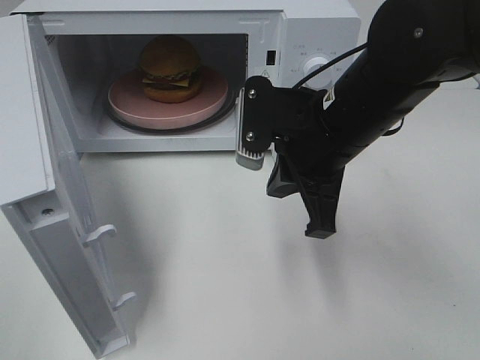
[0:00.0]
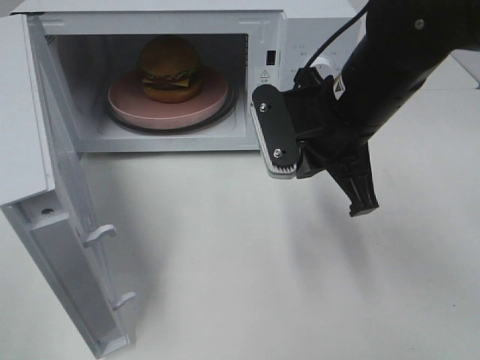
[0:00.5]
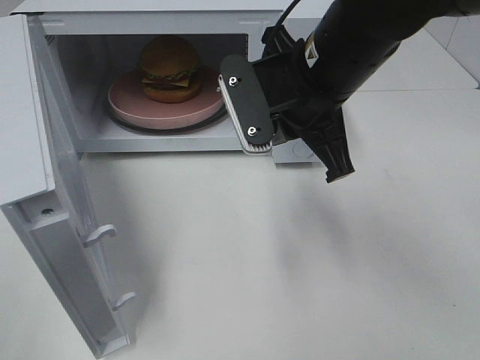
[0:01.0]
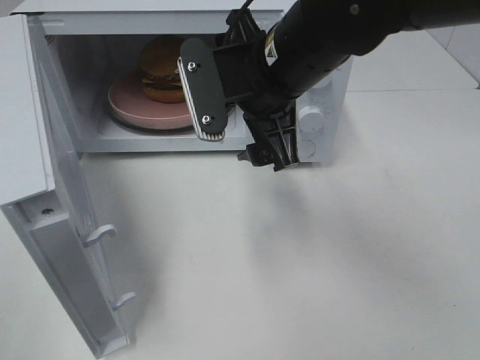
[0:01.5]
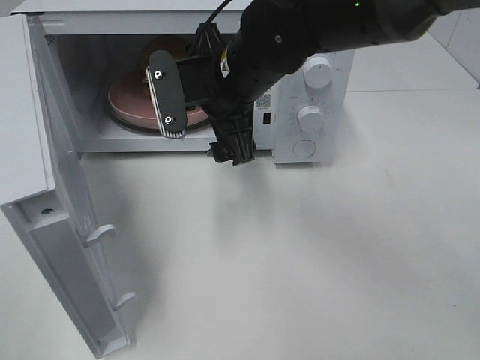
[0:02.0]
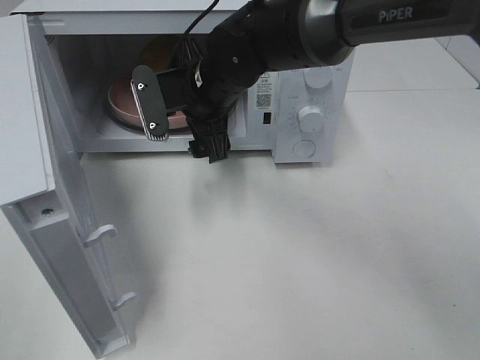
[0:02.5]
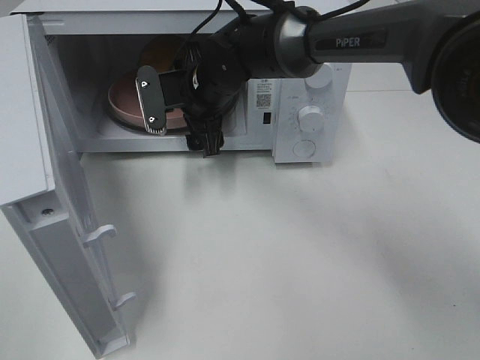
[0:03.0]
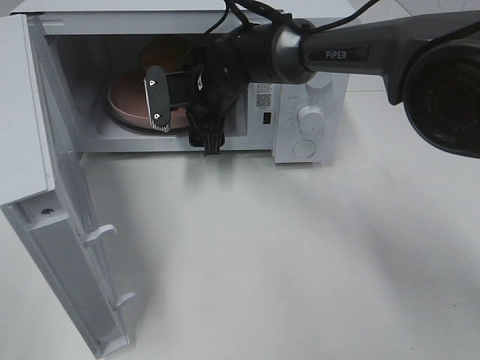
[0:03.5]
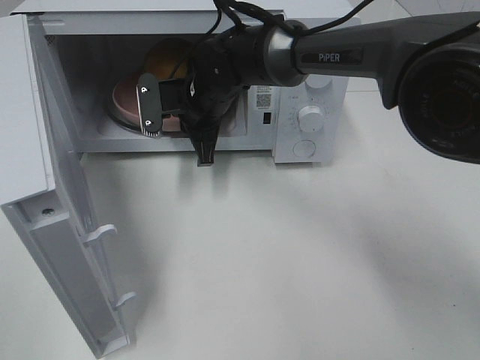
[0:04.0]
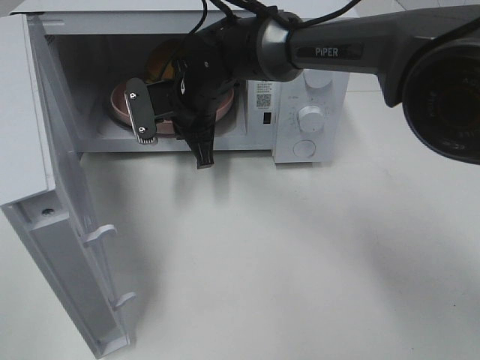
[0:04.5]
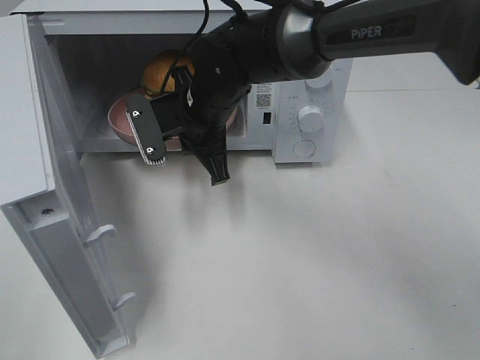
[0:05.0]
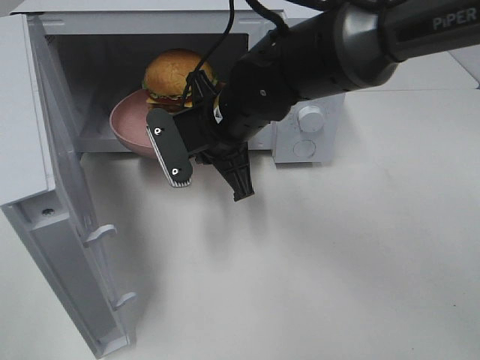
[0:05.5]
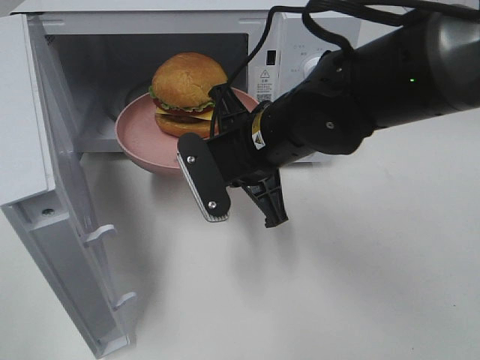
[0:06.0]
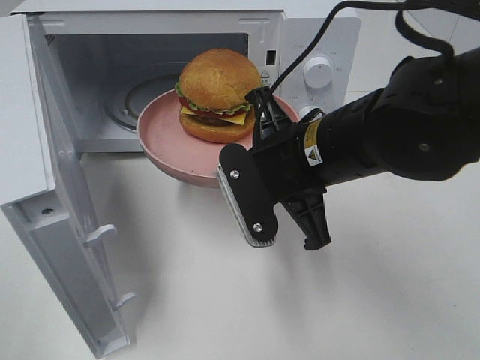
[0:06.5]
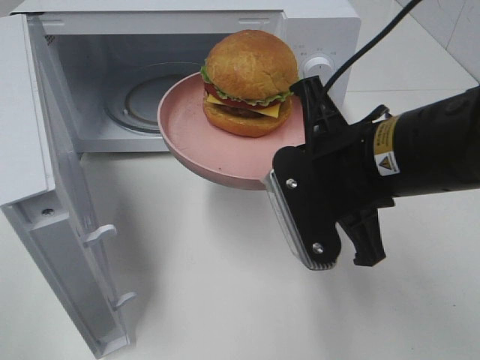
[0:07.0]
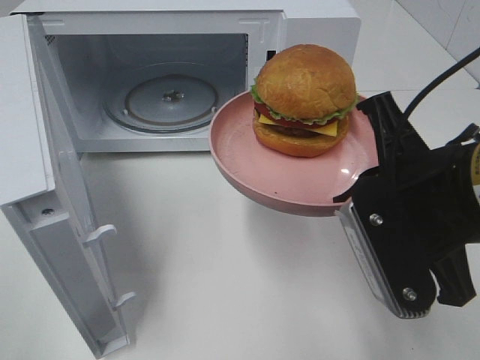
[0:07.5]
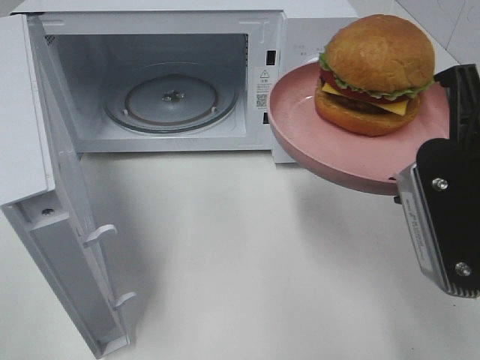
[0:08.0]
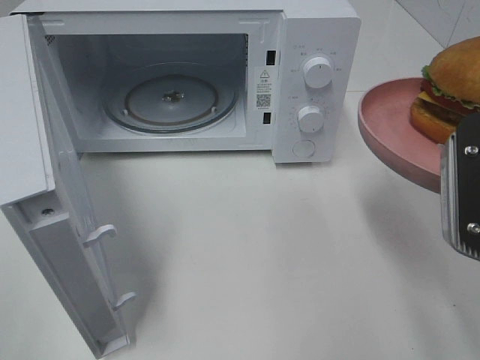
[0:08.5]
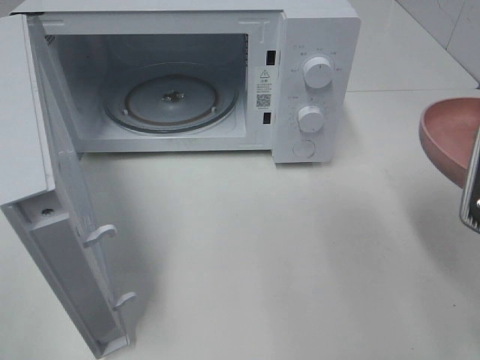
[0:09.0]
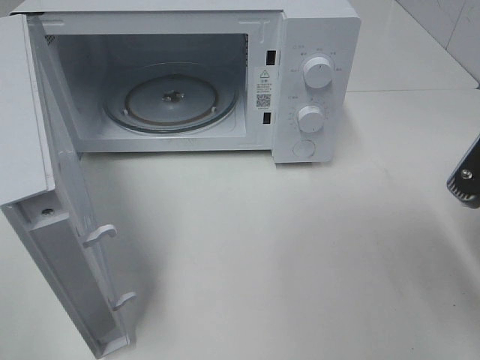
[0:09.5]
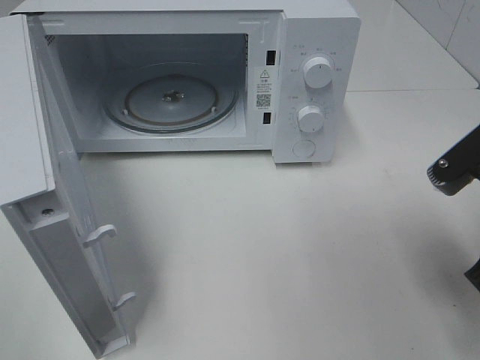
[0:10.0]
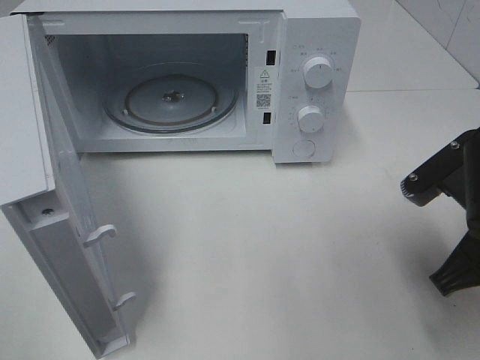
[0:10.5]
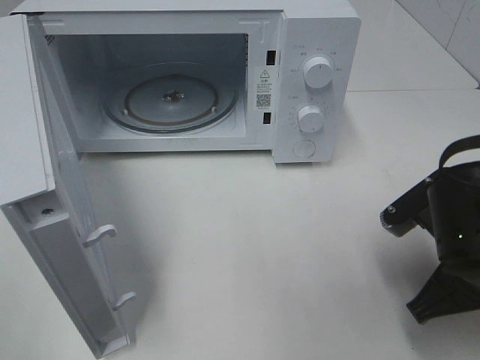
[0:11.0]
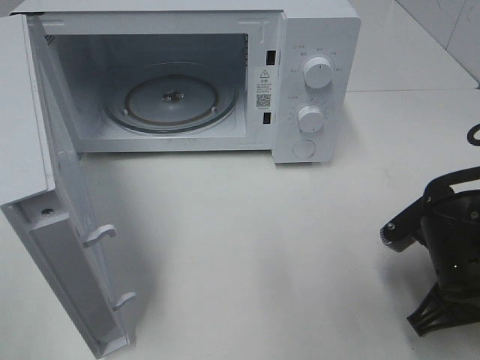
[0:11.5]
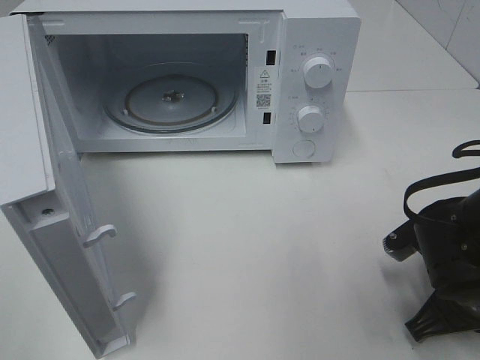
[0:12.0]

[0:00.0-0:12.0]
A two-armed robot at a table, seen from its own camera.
Task of the whole recording: Heat the burger.
Step, 0:00.0 to 0:04.0: Right hand: grab the plate with the hamburger.
0:00.0 to 0:02.0: The right gripper heads to the left and forward, covering roughly 10 cm, and opens up.
0:02.0 to 0:04.0: The right gripper shifts roughly 10 cm forward and downward, and closes.
0:04.0 to 0:06.0: The right gripper travels backward and to the right by roughly 15 cm.
0:06.0 to 0:08.0: The right gripper heads to the right, backward and upward, covering approximately 20 cm.
0:08.0 to 0:10.0: The right gripper travels downward by approximately 5 cm.
0:10.0 to 0:12.0: The right gripper moves downward, approximately 10 cm.

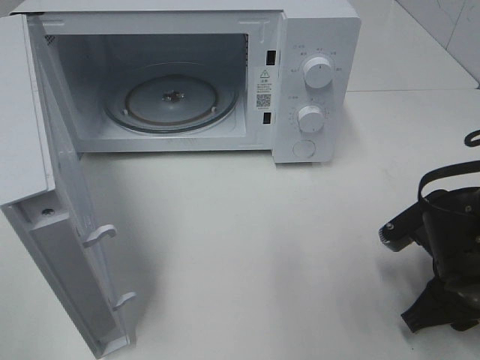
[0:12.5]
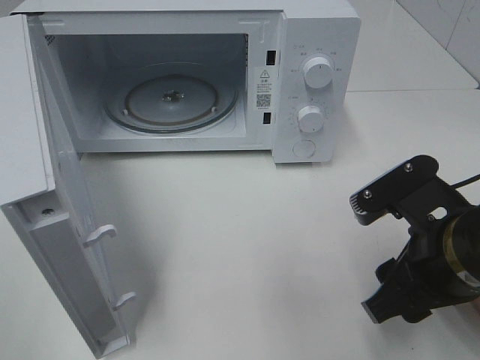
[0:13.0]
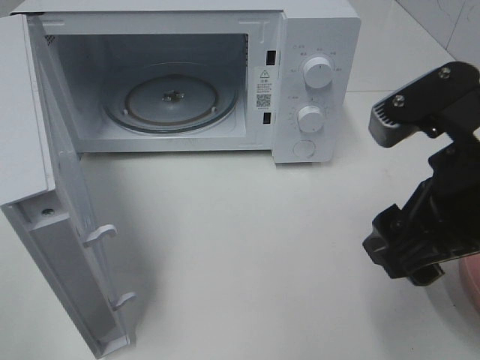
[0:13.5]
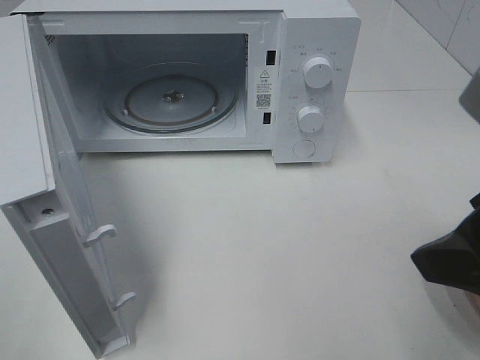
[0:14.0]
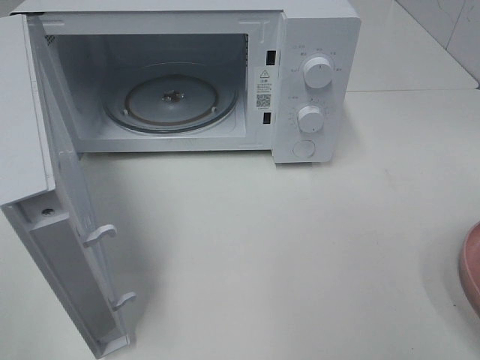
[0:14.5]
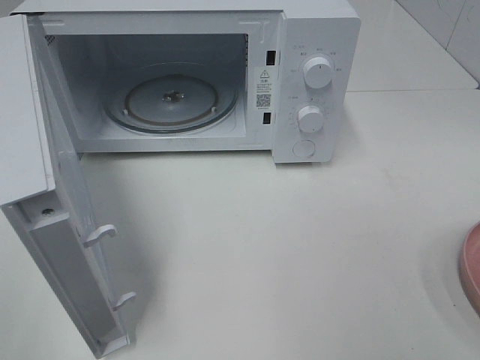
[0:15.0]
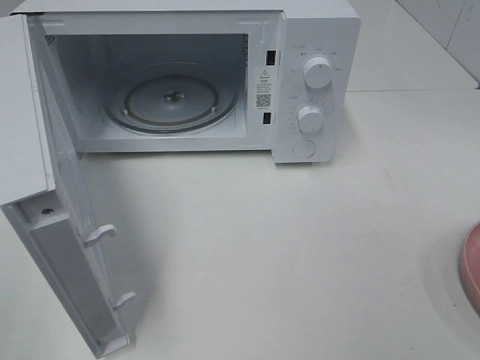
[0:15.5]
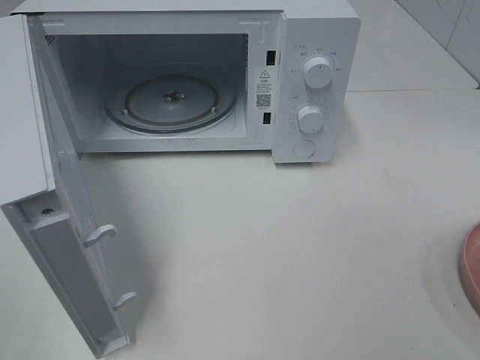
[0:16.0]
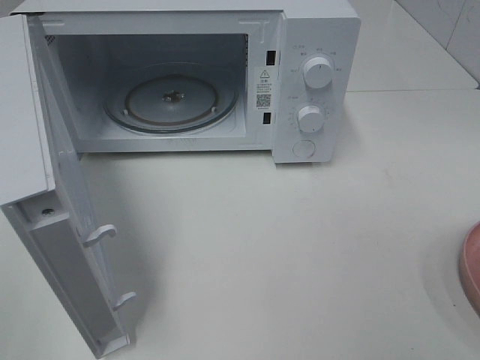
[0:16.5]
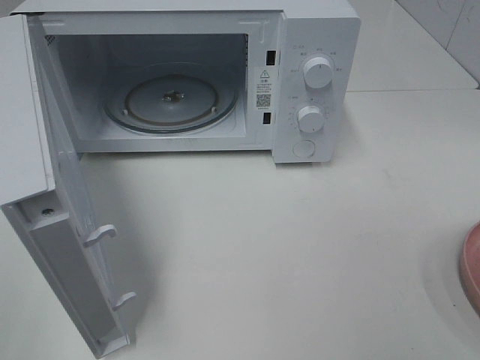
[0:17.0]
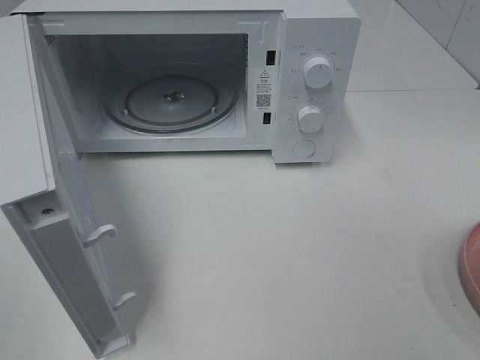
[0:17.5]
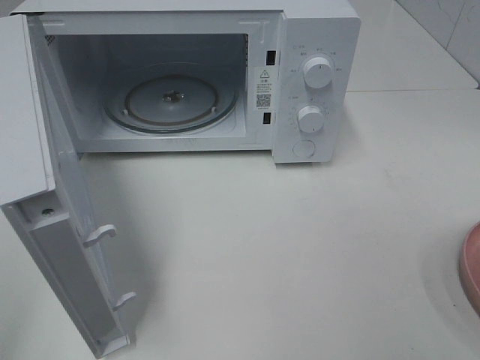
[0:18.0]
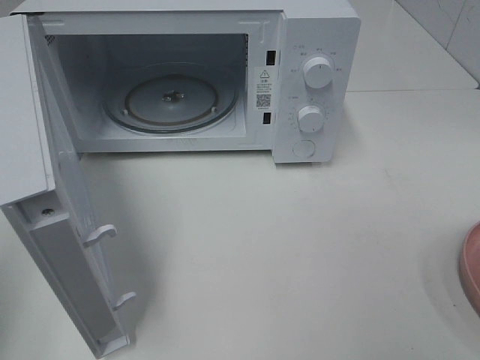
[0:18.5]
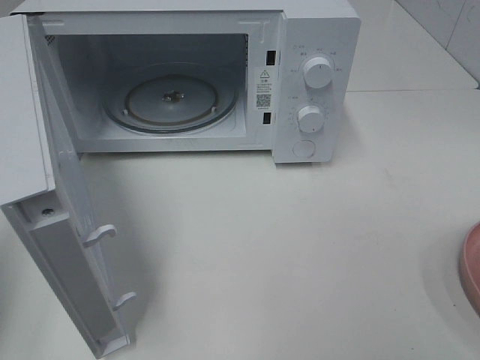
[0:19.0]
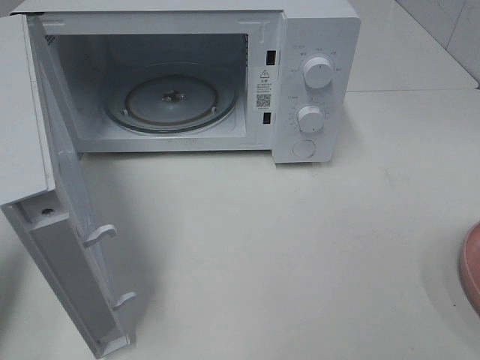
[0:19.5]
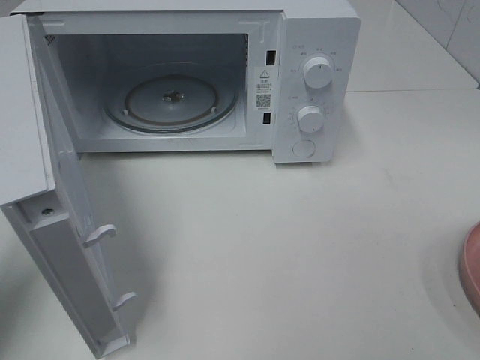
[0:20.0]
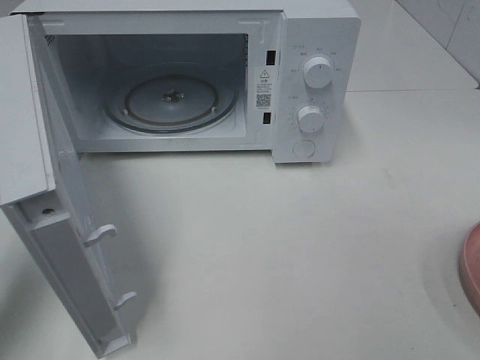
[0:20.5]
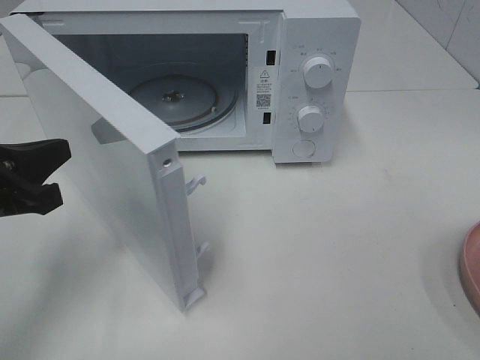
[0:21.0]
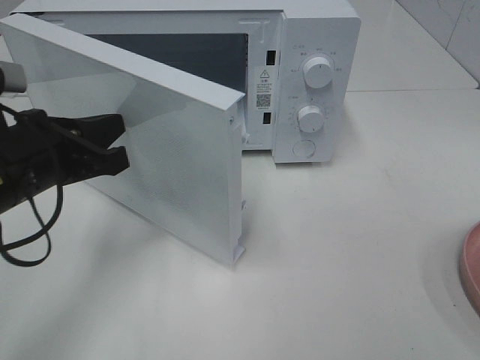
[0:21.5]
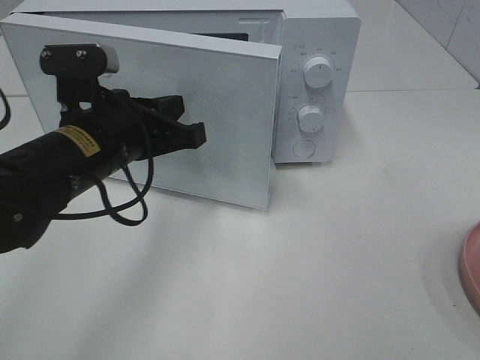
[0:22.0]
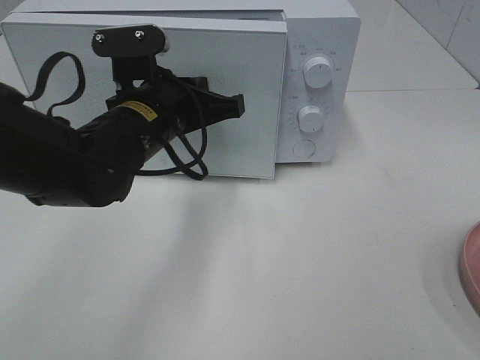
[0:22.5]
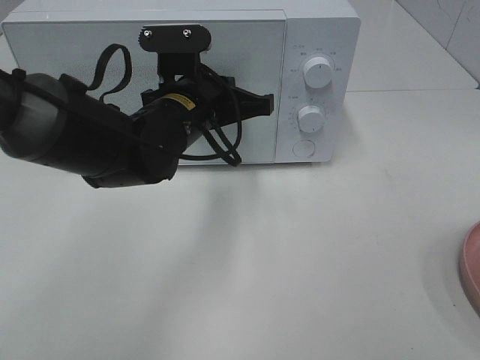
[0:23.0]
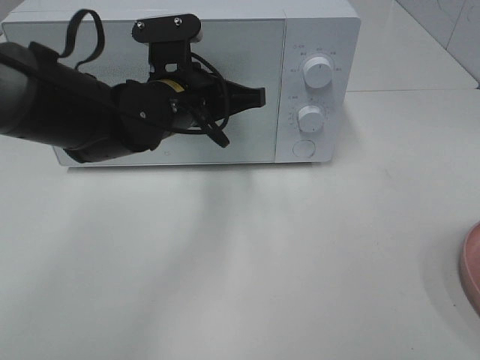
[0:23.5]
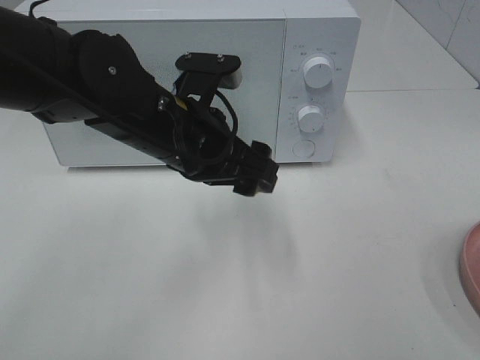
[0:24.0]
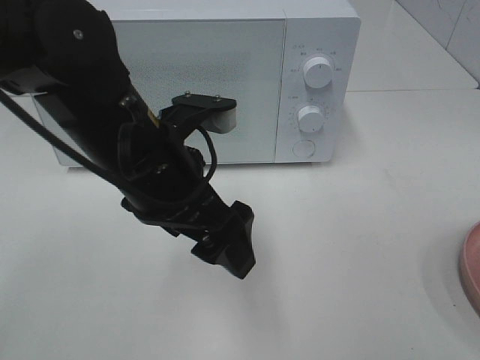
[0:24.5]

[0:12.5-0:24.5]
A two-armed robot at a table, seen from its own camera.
Task of the whole recording: Heat the burger.
Step, 0:12.5 to 0:23.5: Left hand: close the microwave door.
0:12.5 to 0:14.5: The right gripper travels upward and backward by about 25 cm.
0:18.5 to 0:20.5: The left gripper moves forward and downward, roughly 15 cm.
0:20.5 to 0:22.5: The left gripper moves to the right and forward, roughly 20 cm.
0:22.5 to 0:24.5: The left gripper goes roughly 5 cm backward, and opens its fingers.

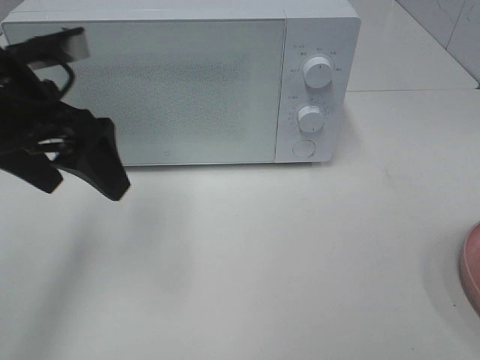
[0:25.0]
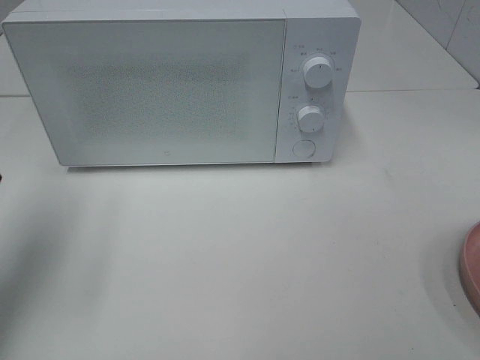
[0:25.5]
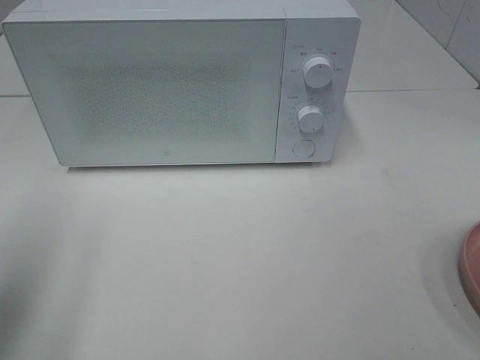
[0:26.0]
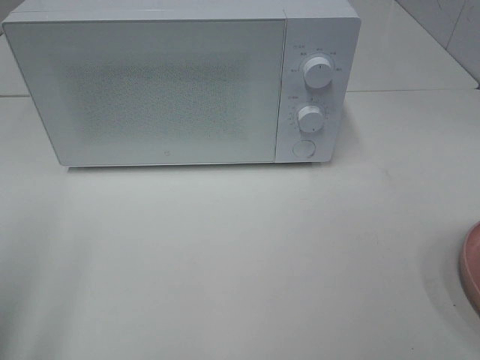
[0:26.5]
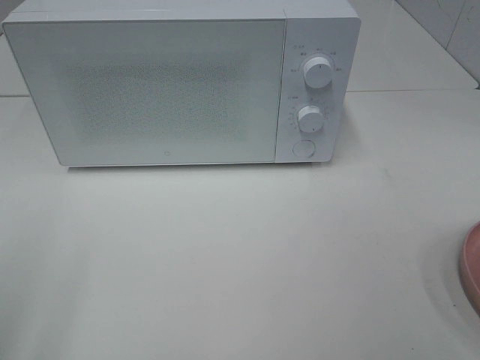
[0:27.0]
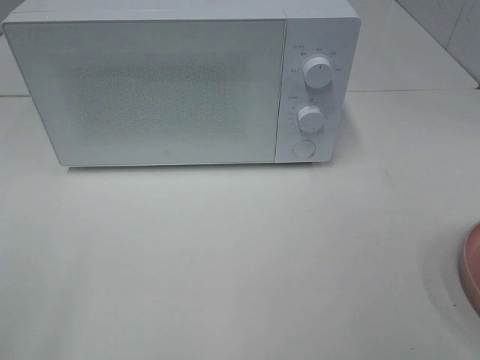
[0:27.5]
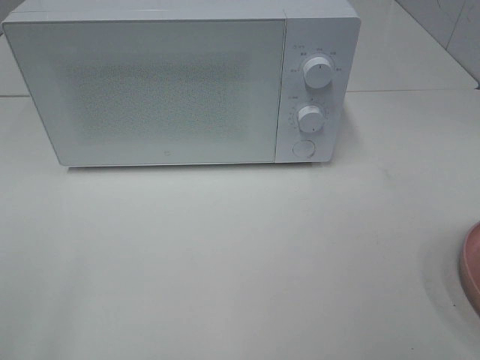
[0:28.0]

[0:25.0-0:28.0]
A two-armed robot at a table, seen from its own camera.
Task of the whole recording: Heat the burger.
0:25.0 to 0:26.5: The left gripper travels backward and to the left by roughly 20 cm.
